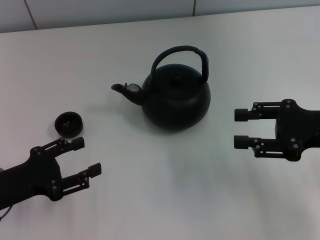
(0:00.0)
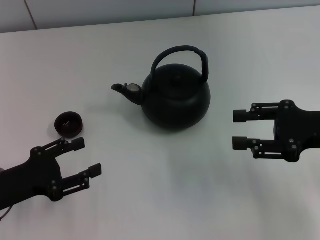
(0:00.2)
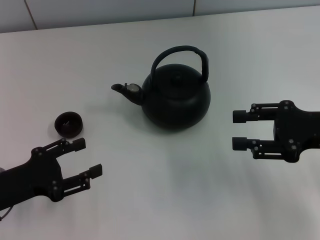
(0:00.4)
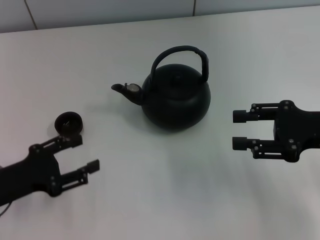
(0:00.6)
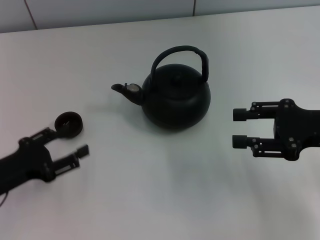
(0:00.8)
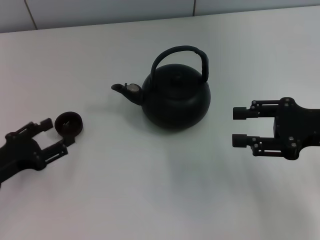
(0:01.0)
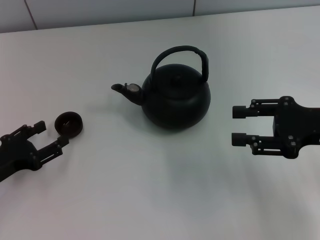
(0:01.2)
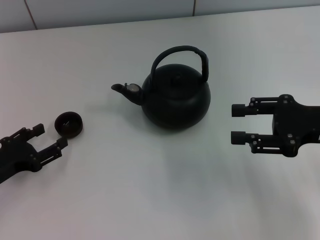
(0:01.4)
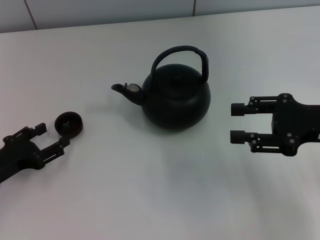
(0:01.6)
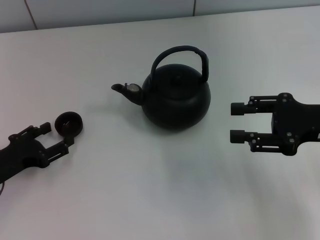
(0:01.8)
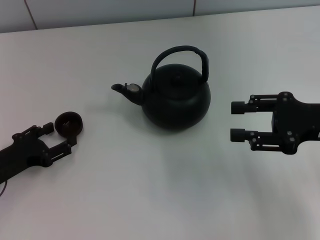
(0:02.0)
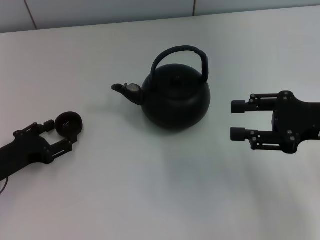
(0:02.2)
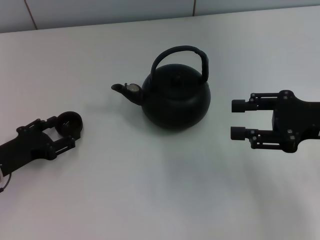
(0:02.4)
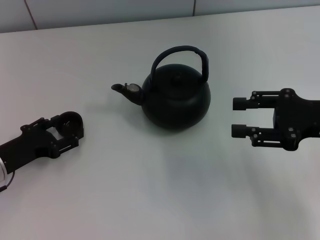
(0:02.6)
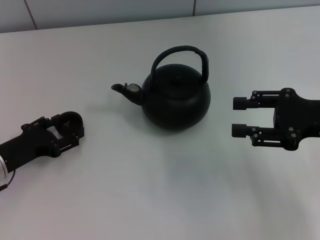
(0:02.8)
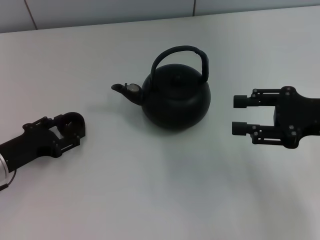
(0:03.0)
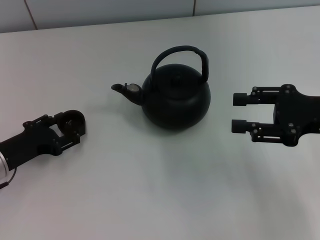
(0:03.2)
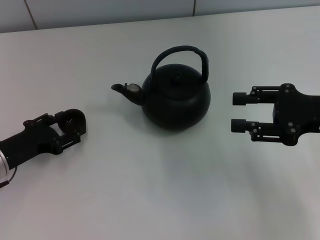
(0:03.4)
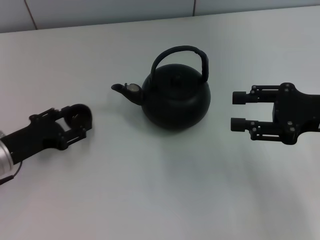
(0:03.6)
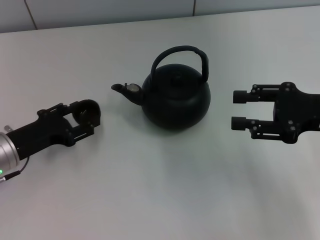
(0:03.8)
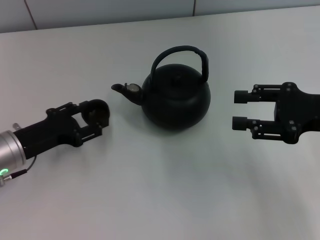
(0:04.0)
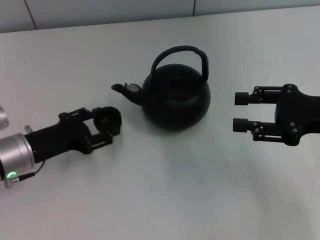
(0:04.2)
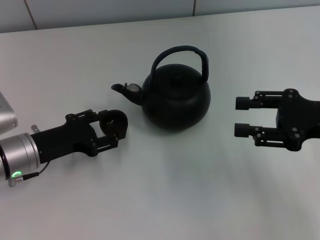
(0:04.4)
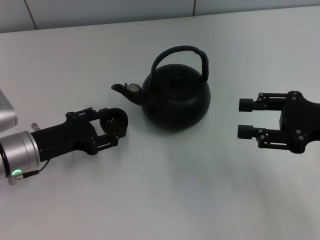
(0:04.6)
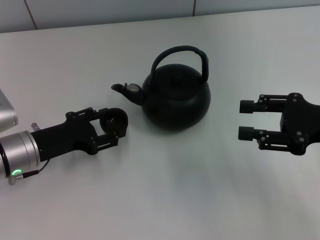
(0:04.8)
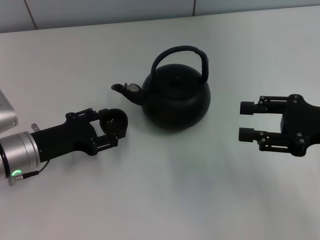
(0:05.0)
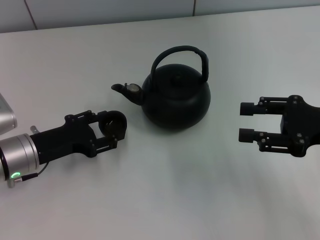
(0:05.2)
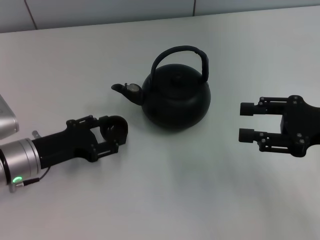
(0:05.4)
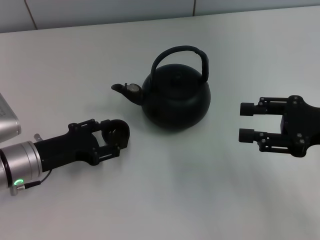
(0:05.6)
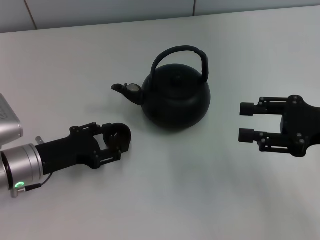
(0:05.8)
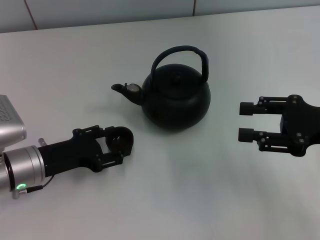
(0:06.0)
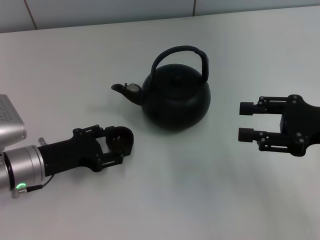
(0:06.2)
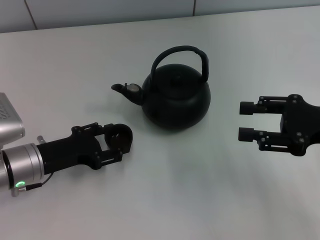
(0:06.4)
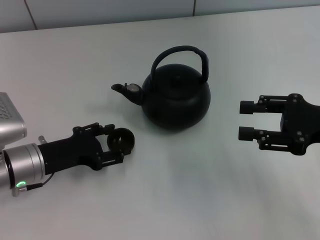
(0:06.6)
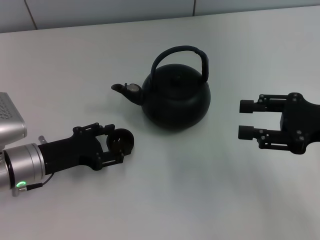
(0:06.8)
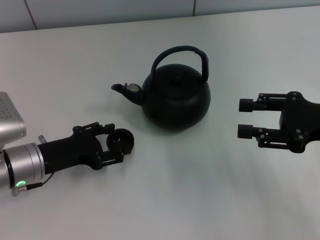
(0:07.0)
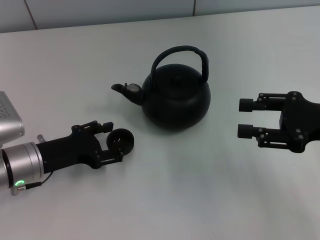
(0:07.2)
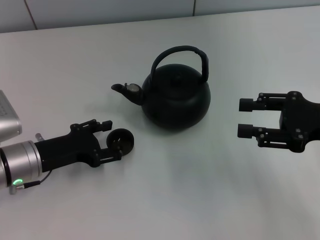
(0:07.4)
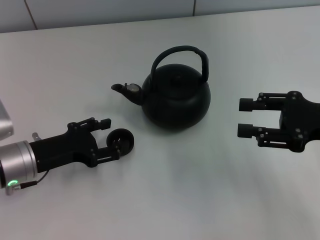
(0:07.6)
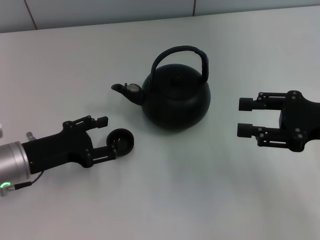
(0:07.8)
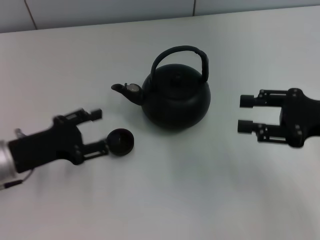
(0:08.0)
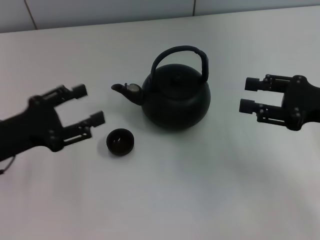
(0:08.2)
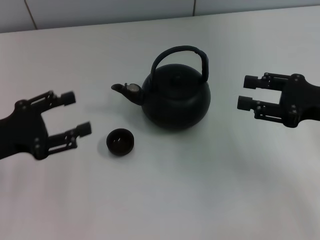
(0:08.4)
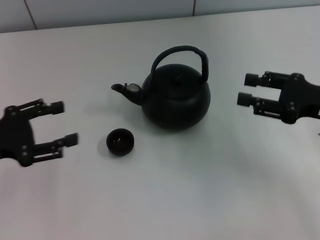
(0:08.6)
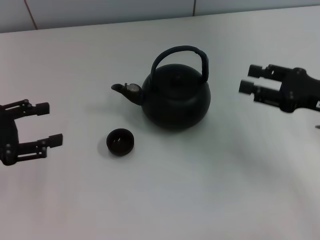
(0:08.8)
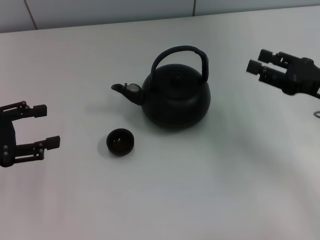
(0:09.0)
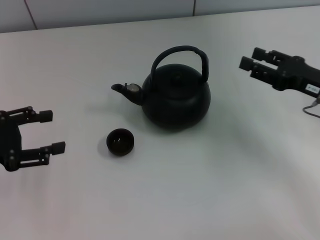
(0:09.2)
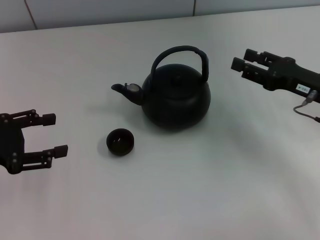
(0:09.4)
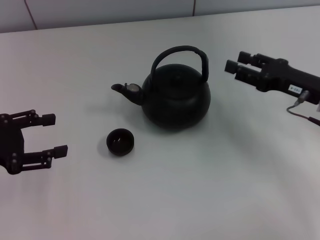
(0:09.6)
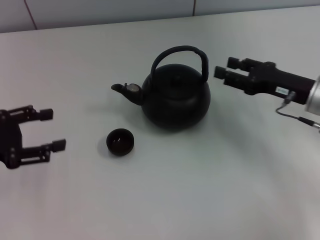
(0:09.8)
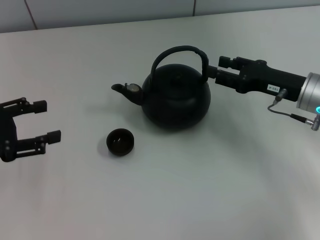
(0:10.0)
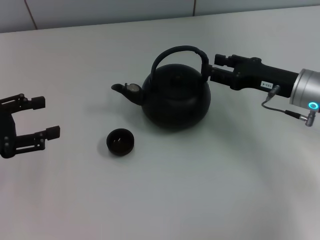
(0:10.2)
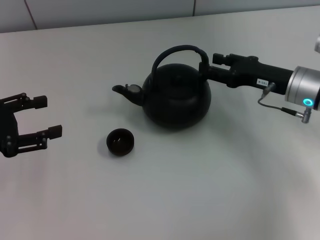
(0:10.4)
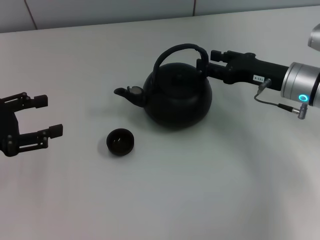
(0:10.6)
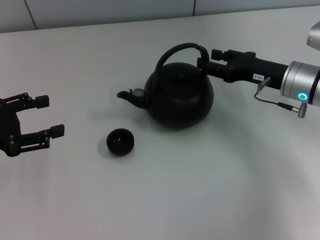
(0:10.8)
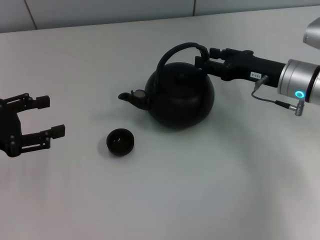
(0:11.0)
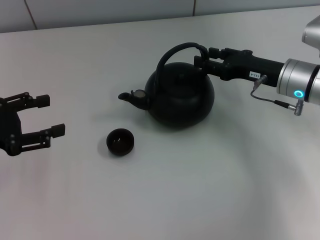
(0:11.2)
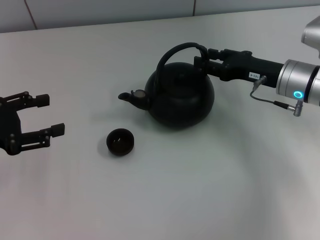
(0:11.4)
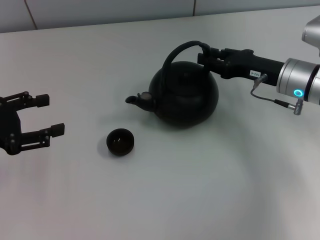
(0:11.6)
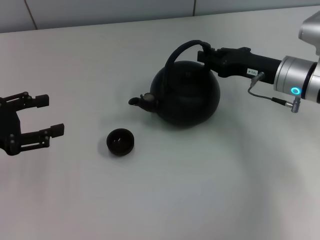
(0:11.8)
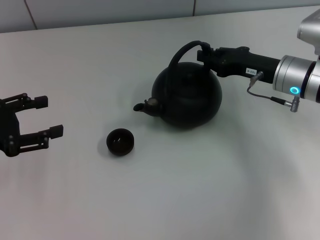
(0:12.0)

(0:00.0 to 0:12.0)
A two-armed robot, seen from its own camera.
Task of the whole recording: Grasp the handle of the teapot with one hand and pour tea into the teacup.
Step, 0:00.0 - 0:04.8: Pick up the teacup with the left gripper.
Step, 0:05.0 - 0:07.8: Place the teacup in the center of view with the left gripper.
0:01.6 - 0:03.0: The grippers stay close to where they were, moving slightly.
0:03.0 - 0:04.4: The left gripper moves about 5 cm.
0:04.4 - 0:07.6: The grippers move only a little.
0:07.6 - 0:09.0: The left gripper is displaced to the left and upward by roughly 10 cm.
0:09.0 - 0:10.4: The right gripper shifts some 10 cm to the left and forward.
0:10.4 - 0:12.0: The right gripper closes.

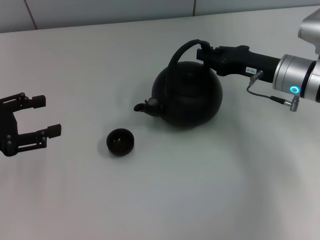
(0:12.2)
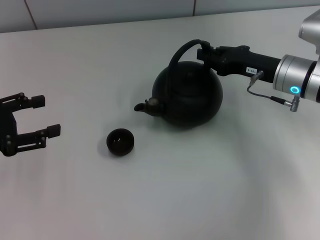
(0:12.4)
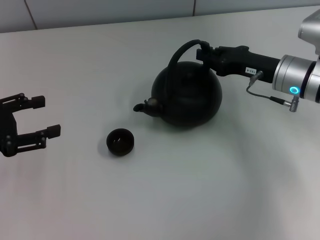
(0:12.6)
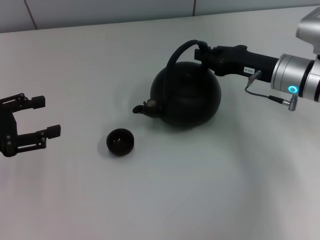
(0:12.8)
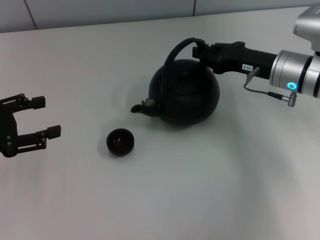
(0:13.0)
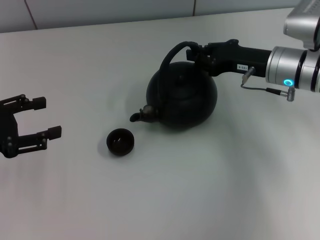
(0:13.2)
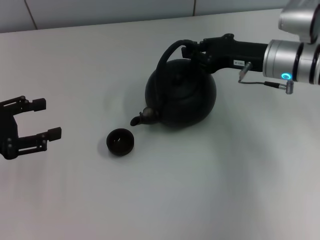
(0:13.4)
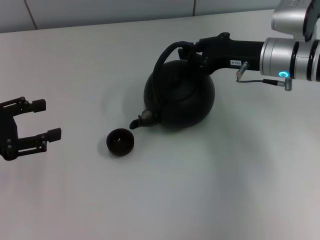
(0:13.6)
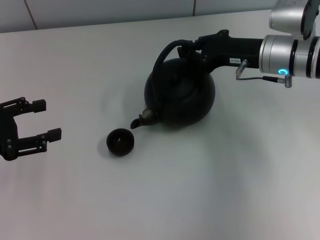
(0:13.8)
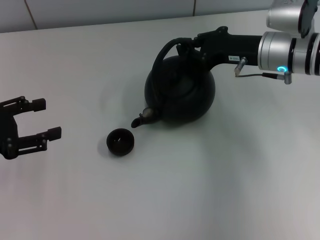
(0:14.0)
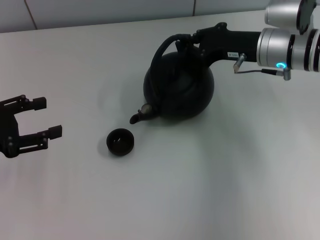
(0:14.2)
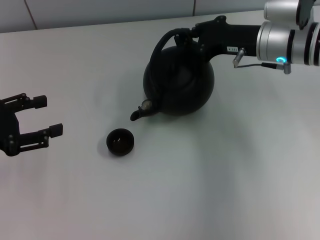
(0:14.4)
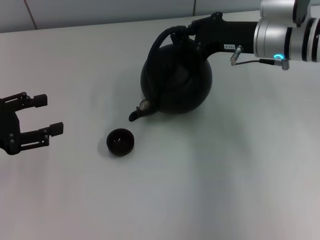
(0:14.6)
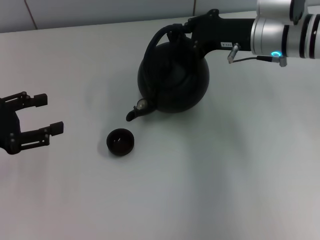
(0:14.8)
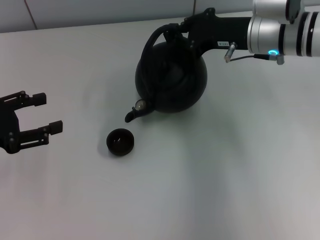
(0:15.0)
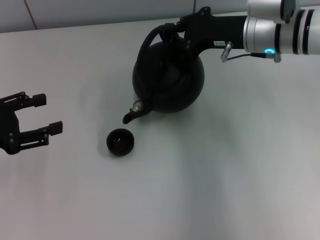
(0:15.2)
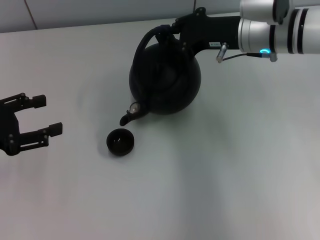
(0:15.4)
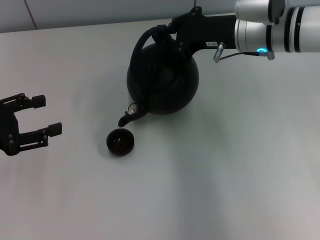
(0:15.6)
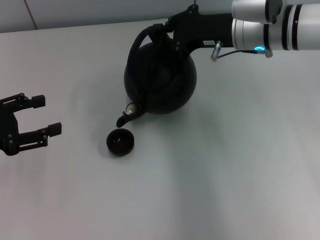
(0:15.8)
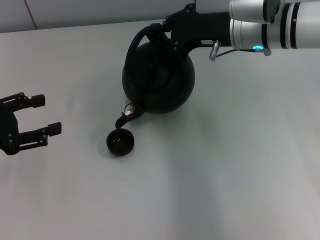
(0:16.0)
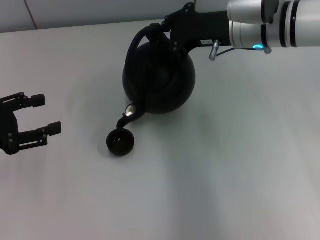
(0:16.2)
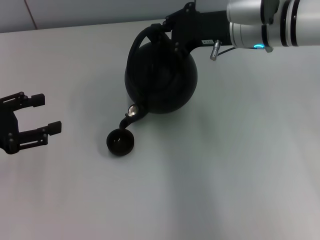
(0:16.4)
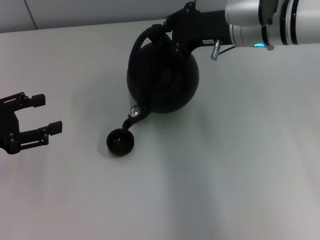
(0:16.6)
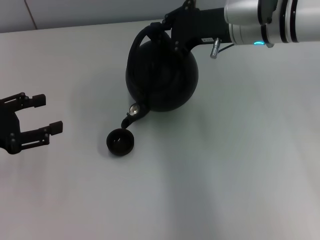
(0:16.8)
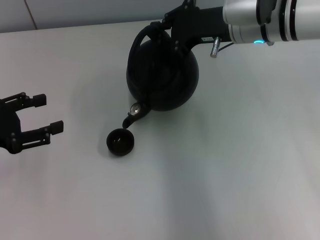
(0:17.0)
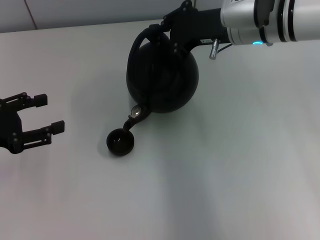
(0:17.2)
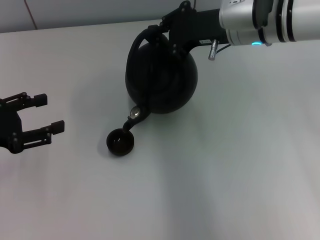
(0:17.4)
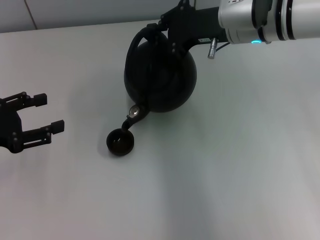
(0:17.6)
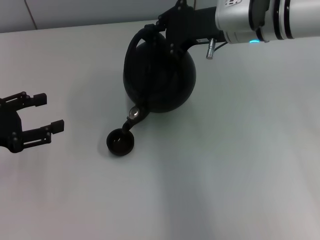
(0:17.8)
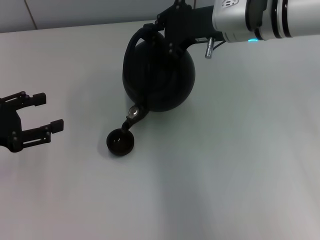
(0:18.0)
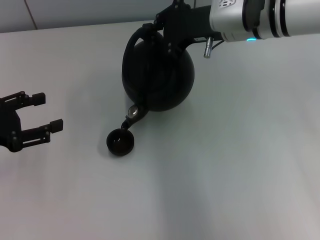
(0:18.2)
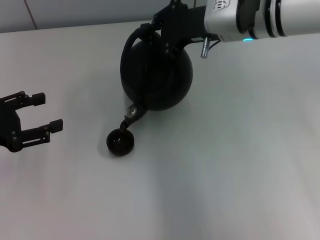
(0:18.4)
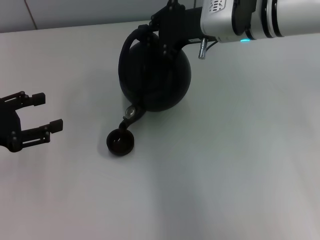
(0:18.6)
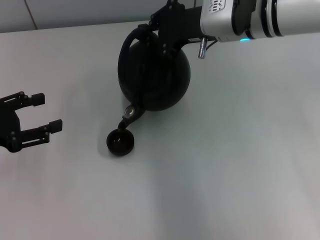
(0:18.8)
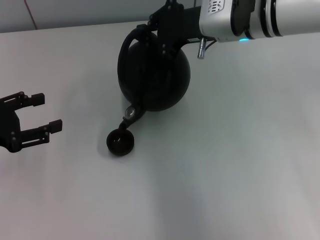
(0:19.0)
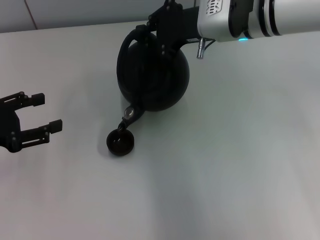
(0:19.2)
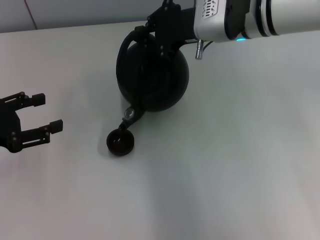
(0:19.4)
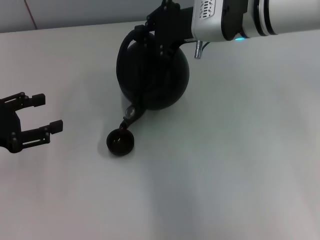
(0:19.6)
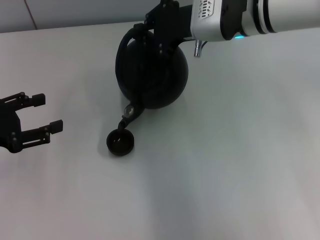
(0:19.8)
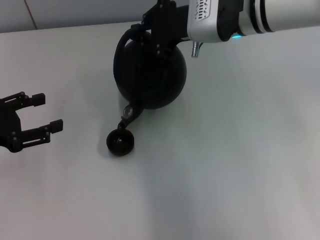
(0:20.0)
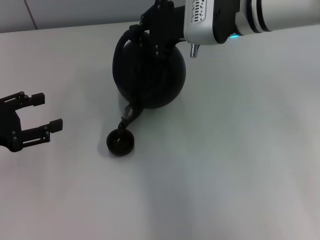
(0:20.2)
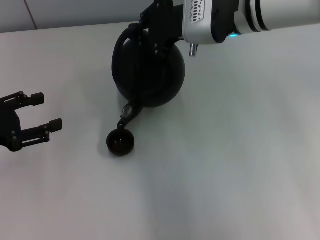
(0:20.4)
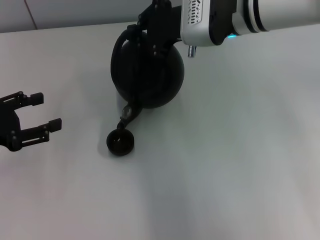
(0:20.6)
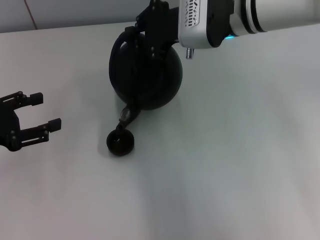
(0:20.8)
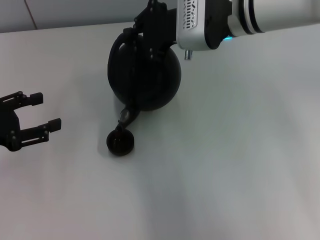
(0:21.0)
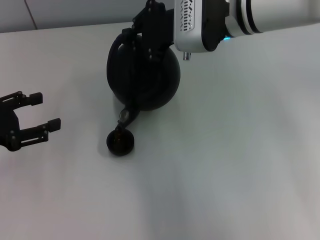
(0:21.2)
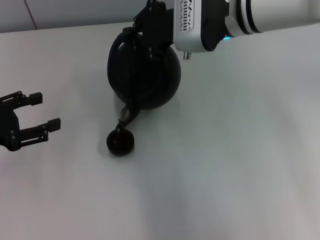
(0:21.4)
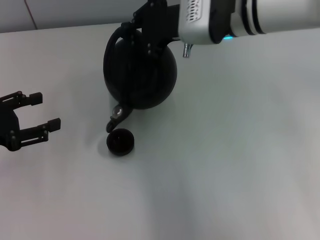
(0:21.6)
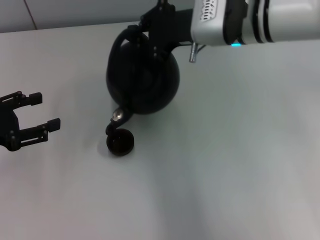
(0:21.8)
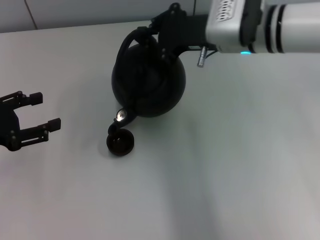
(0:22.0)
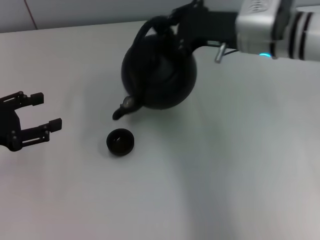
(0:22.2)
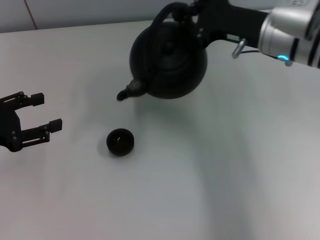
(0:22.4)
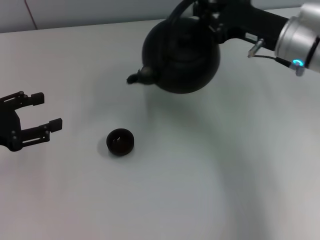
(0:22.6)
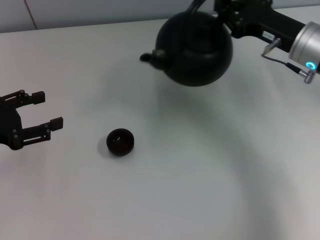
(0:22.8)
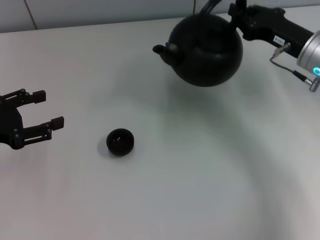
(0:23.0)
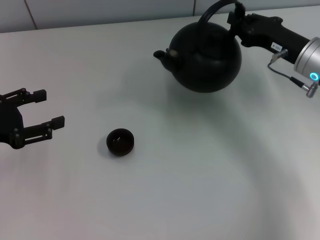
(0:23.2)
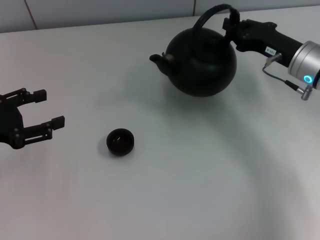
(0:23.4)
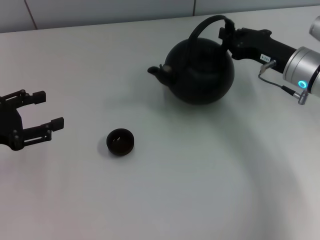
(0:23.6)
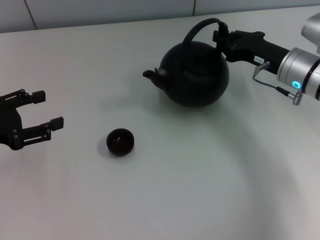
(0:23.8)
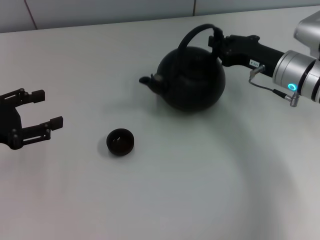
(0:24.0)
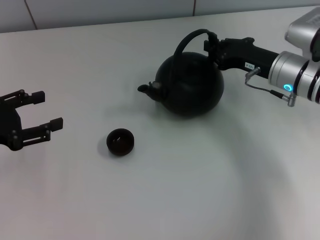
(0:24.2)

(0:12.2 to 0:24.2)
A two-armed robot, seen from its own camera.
Task of the whole recording: Grasp the handle of the teapot with one hand and pour tea into the teacup.
0:12.2 - 0:13.8: There are only small adjustments of the grippers.
0:13.8 - 0:15.2: The grippers make only small movements.
0:15.2 - 0:16.6: The grippers stay close to where they were, moving slightly.
0:16.6 - 0:19.8: The grippers make only small movements.
0:19.8 - 0:21.2: The grippers make only small movements.
0:21.2 - 0:22.6: The right gripper travels to the right by some 10 cm.
0:22.6 - 0:24.2: The right gripper travels downward by some 5 cm.
